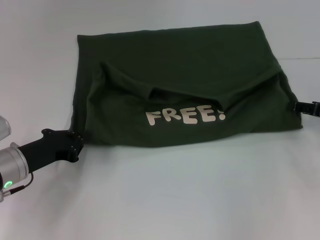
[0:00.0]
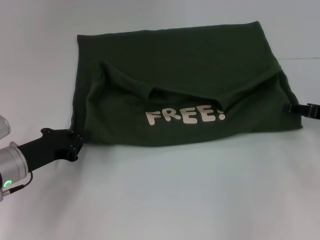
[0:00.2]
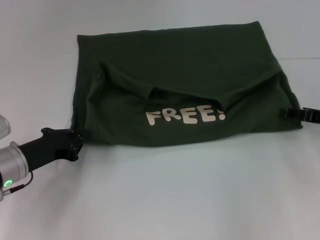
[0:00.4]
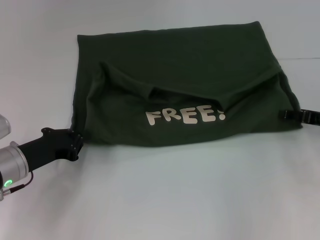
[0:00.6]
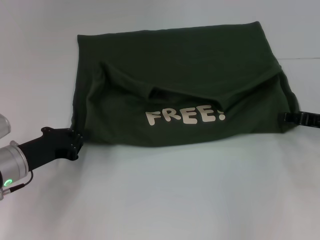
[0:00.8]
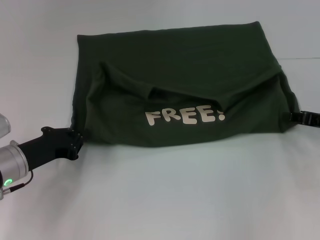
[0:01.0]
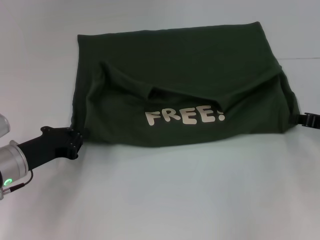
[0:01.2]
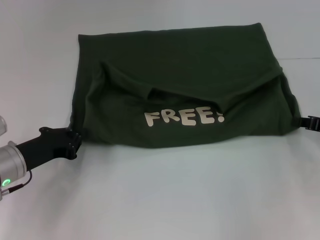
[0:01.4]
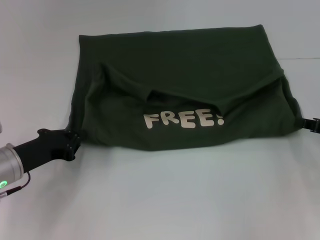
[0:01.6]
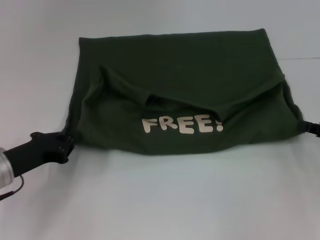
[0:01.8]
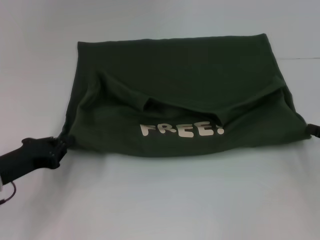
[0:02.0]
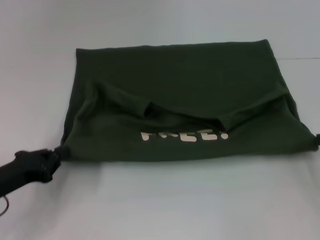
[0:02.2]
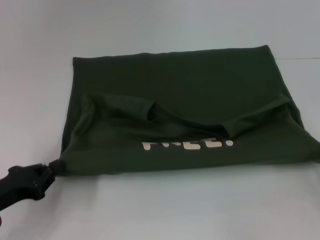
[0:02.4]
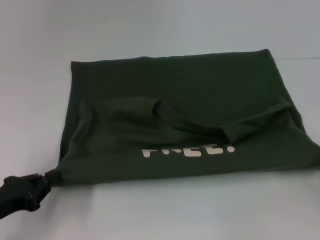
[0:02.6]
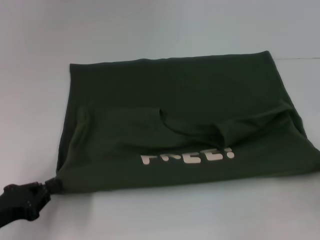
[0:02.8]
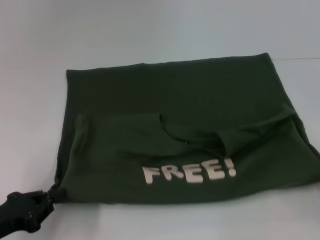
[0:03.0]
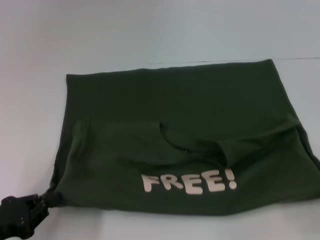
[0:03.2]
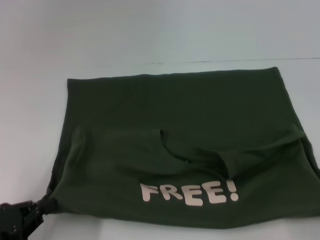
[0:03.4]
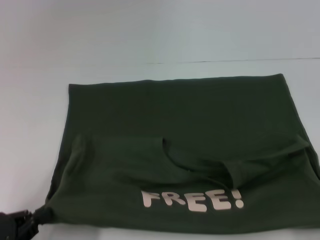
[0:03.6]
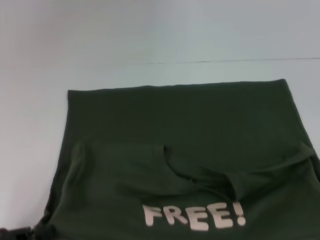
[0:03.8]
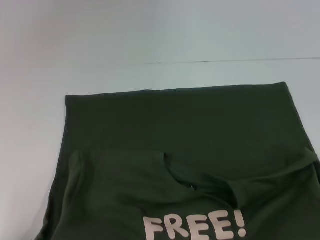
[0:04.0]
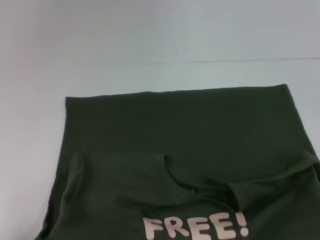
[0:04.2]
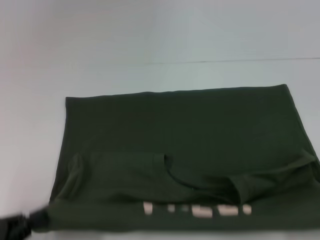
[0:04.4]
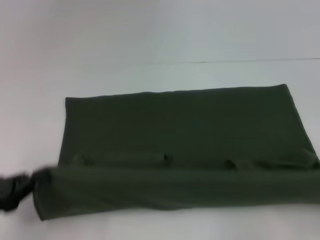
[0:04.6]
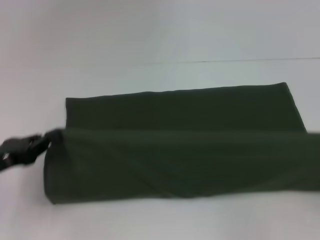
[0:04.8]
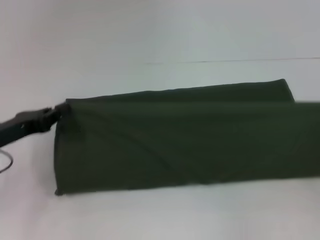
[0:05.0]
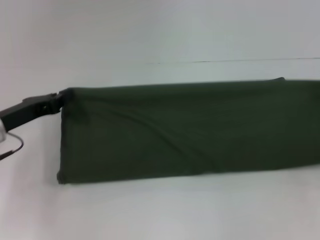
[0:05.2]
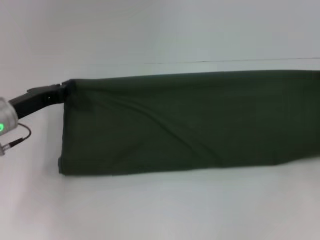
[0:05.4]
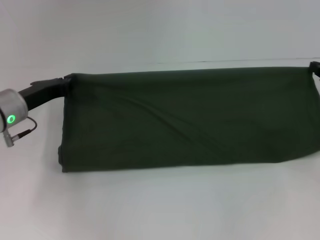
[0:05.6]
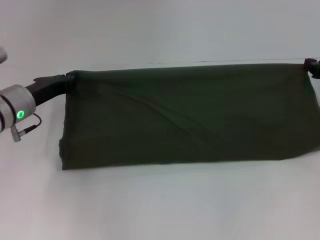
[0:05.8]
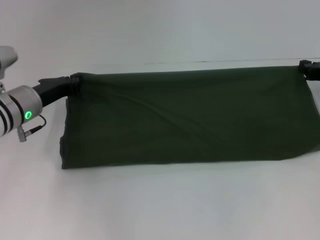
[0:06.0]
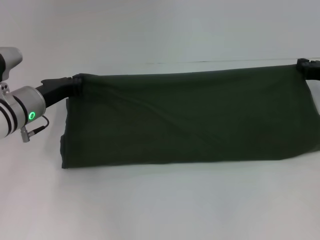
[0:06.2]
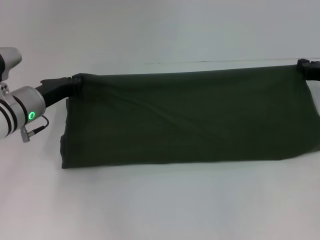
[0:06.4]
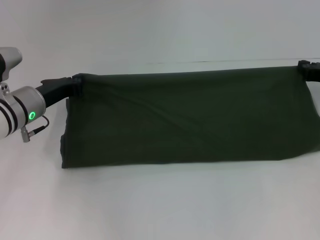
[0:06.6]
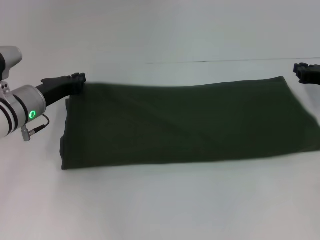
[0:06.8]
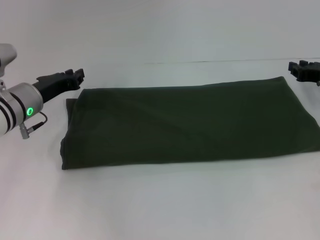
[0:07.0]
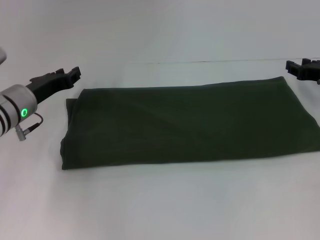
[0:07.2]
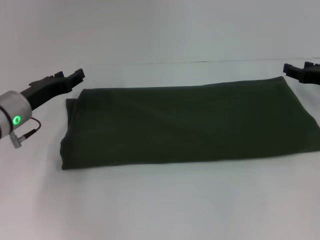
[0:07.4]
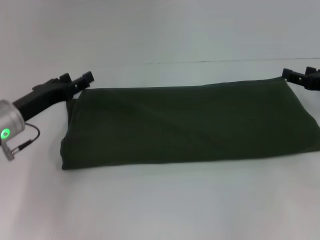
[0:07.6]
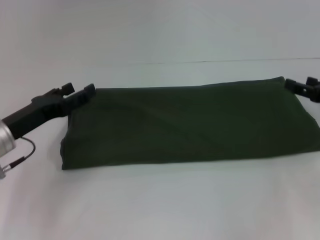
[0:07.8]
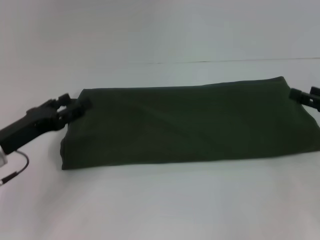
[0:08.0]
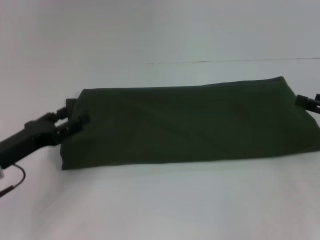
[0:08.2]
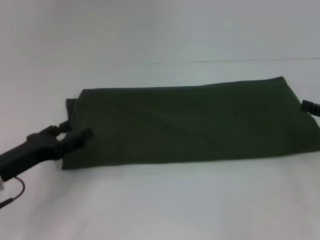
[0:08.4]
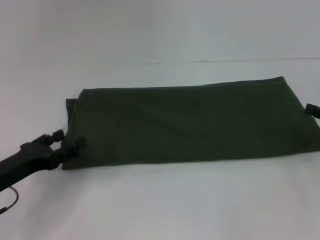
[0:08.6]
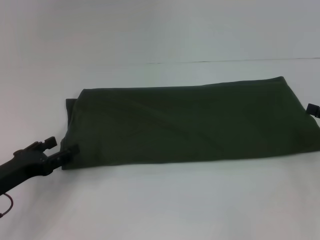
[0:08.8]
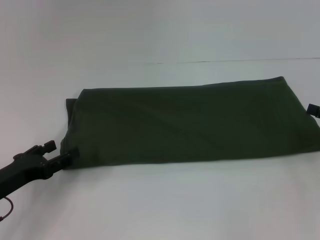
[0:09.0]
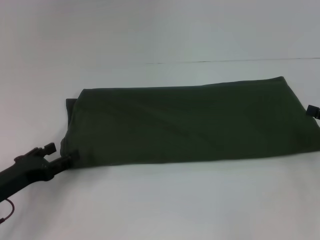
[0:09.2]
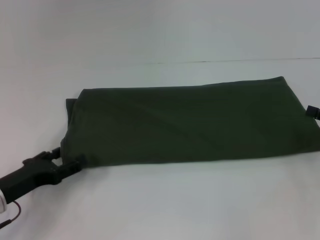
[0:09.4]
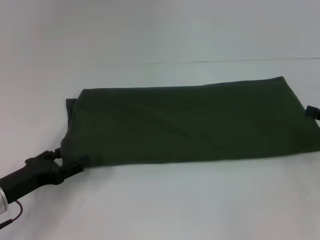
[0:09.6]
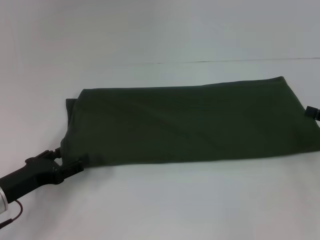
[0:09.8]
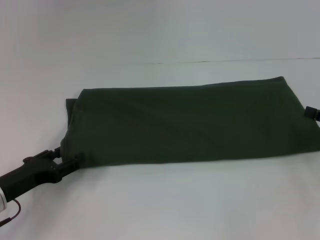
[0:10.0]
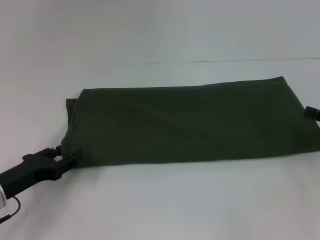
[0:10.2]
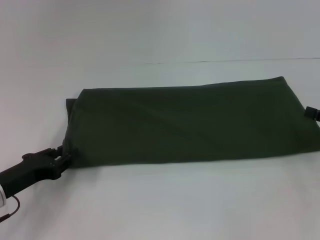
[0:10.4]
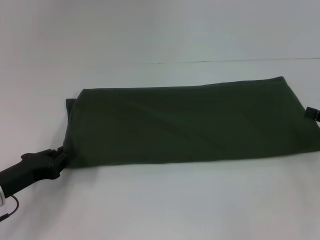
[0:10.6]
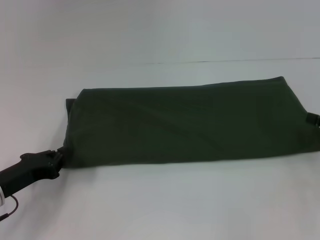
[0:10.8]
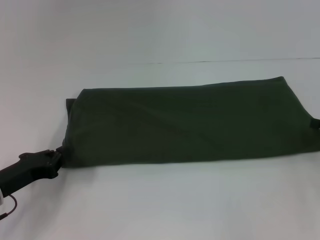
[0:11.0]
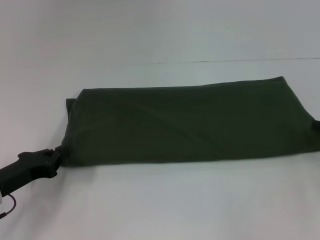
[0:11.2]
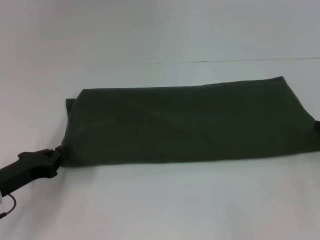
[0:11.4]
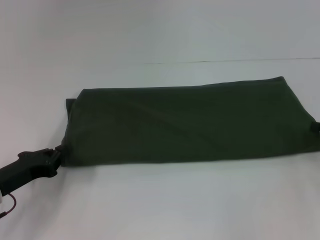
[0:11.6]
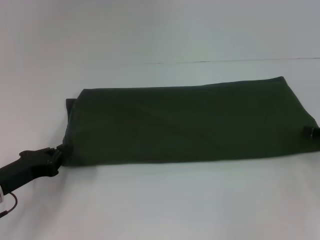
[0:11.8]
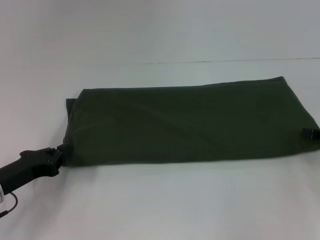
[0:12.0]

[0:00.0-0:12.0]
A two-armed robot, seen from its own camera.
Step, 0:00.0 to 0:04.0: Pull the clothes with your left hand.
Step, 0:00.0 to 0:04.0: Pull the clothes with your right hand.
Step, 0:04.2 to 0:06.8: Fold the clothes with your left hand.
Step, 0:04.2 to 0:06.8: Fold the clothes with your right hand.
0:00.0 to 0:01.6: The right gripper closes its fingers.
0:01.6 to 0:03.0: Both grippers travel together backward, roughly 10 cm.
0:03.0 to 0:04.4: The left gripper ends up some 5 cm from where it was. The right gripper moves backward, approximately 5 cm.
0:04.4 to 0:06.0: Both grippers travel together forward, some 25 cm.
0:06.0 to 0:07.6: The right gripper opens up; the left gripper moves approximately 5 cm, and opens.
0:07.6 to 0:09.0: The grippers both shift backward by roughly 10 cm.
0:09.0 to 0:10.4: The grippers stay close to where they were, moving slightly.
0:10.4 to 0:12.0: The left gripper closes its fingers.

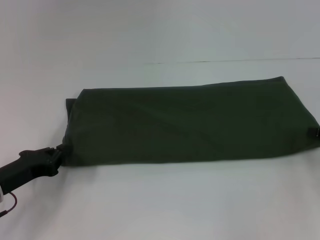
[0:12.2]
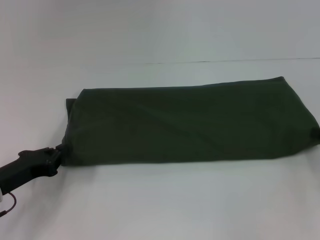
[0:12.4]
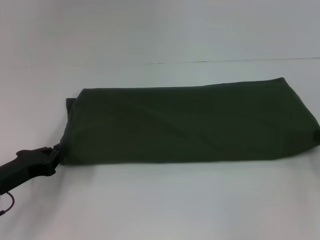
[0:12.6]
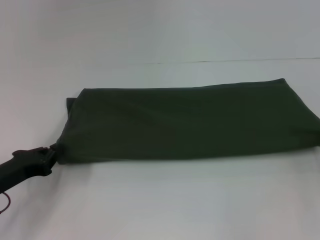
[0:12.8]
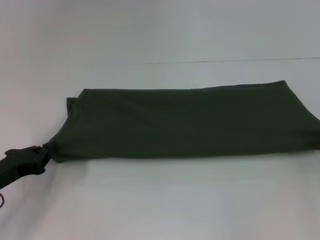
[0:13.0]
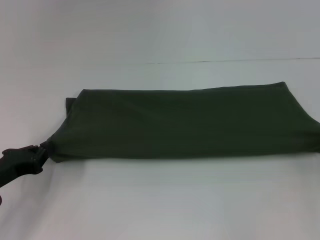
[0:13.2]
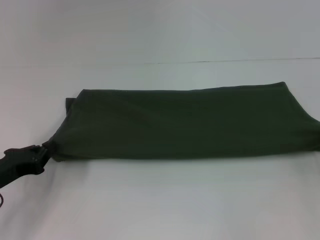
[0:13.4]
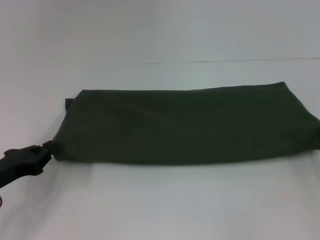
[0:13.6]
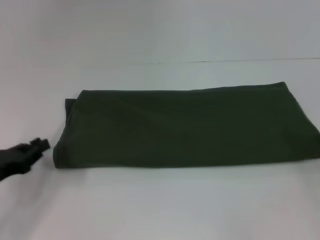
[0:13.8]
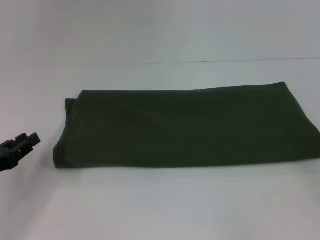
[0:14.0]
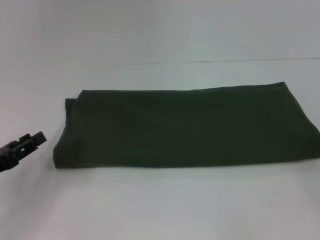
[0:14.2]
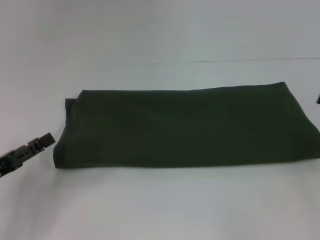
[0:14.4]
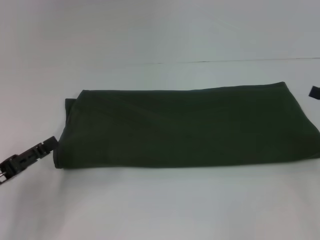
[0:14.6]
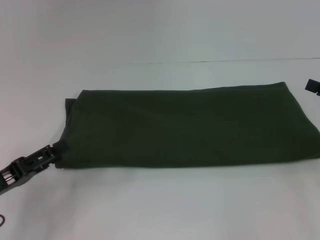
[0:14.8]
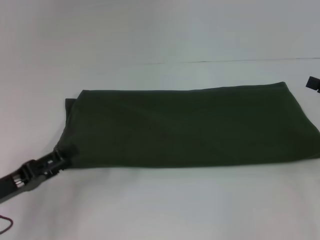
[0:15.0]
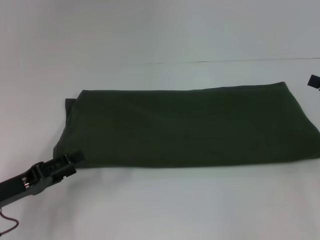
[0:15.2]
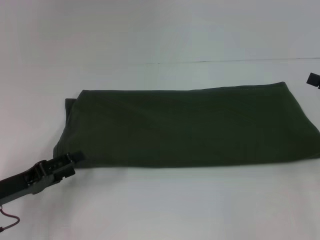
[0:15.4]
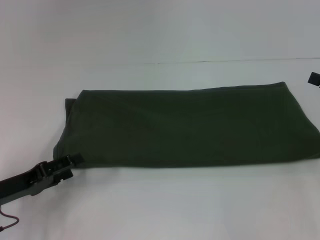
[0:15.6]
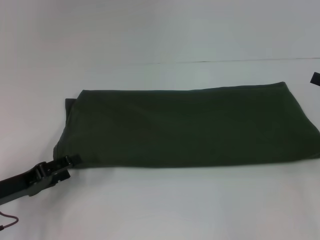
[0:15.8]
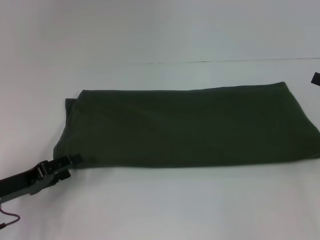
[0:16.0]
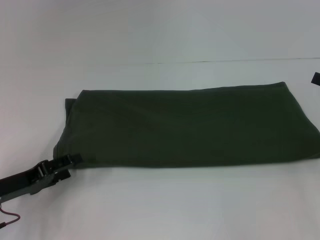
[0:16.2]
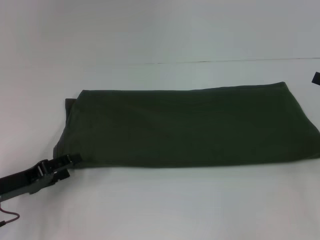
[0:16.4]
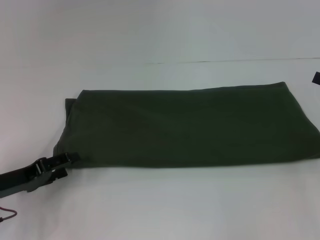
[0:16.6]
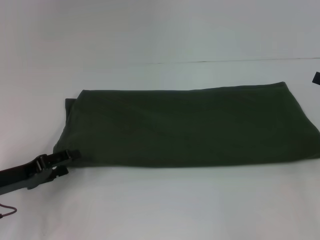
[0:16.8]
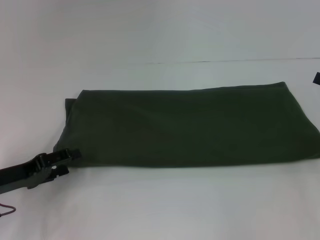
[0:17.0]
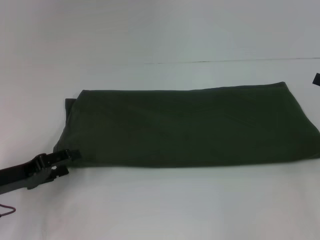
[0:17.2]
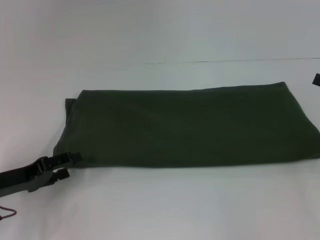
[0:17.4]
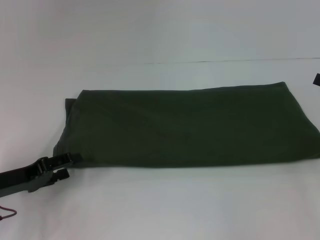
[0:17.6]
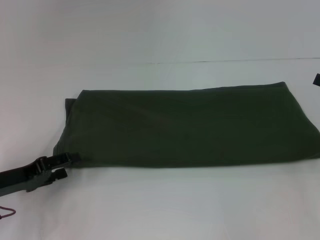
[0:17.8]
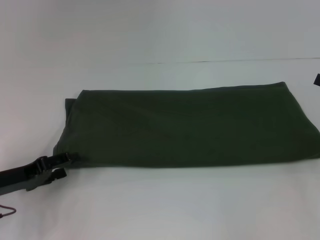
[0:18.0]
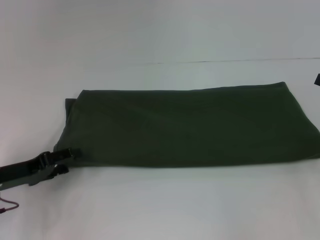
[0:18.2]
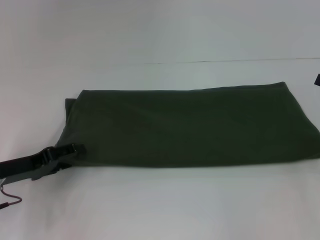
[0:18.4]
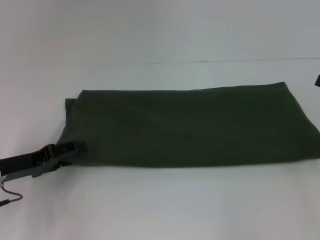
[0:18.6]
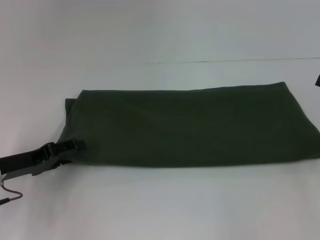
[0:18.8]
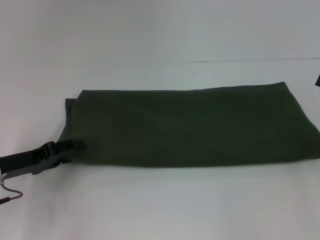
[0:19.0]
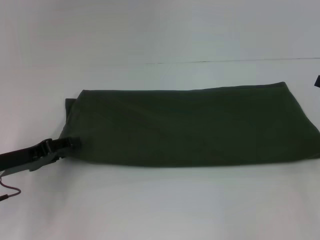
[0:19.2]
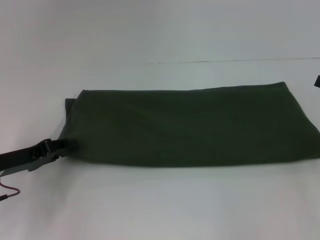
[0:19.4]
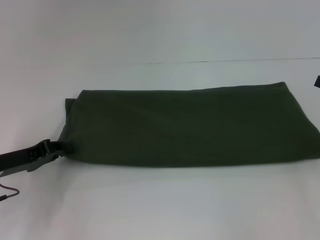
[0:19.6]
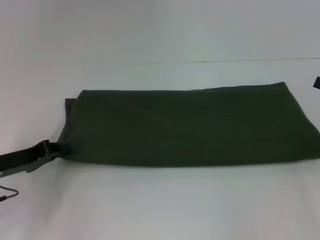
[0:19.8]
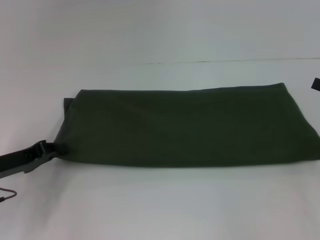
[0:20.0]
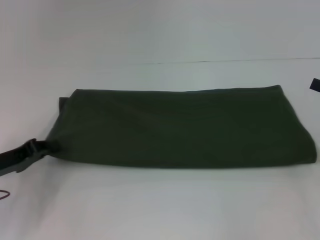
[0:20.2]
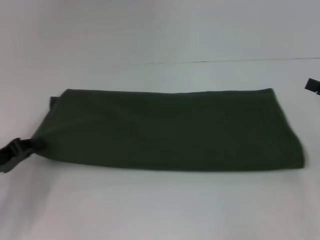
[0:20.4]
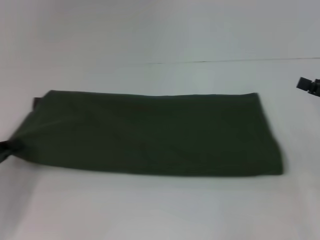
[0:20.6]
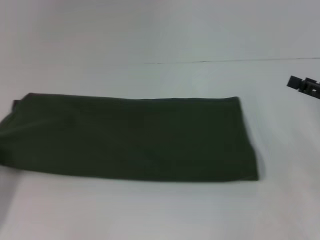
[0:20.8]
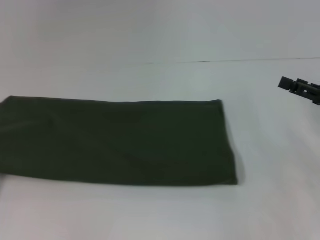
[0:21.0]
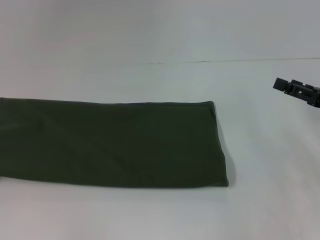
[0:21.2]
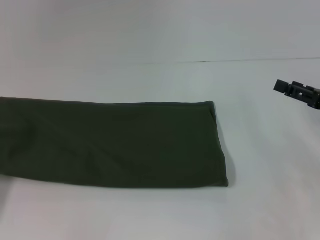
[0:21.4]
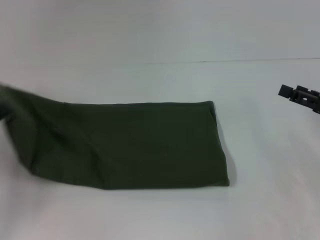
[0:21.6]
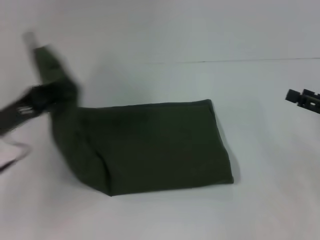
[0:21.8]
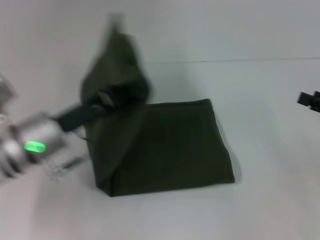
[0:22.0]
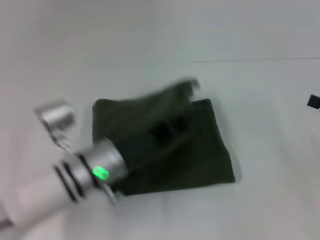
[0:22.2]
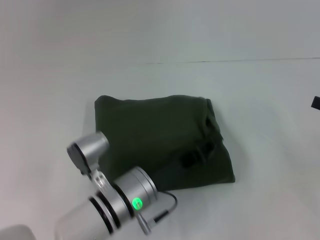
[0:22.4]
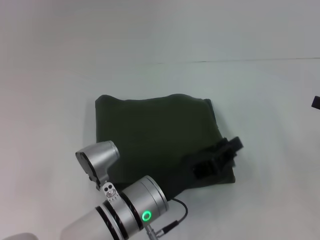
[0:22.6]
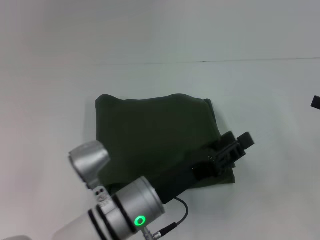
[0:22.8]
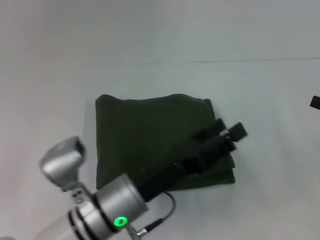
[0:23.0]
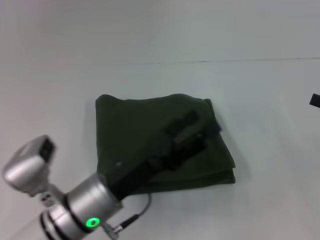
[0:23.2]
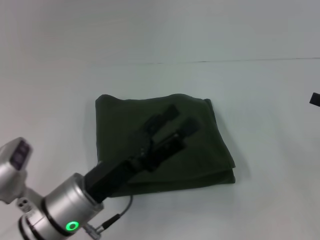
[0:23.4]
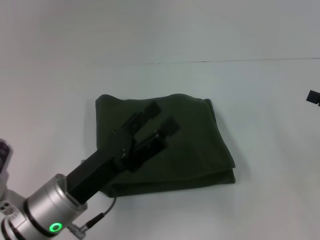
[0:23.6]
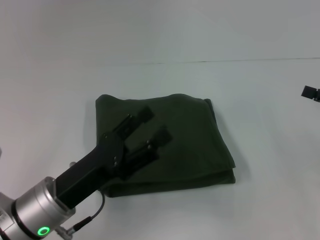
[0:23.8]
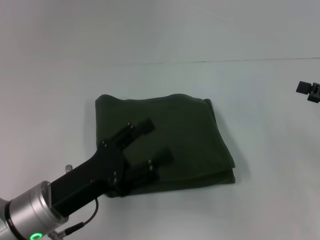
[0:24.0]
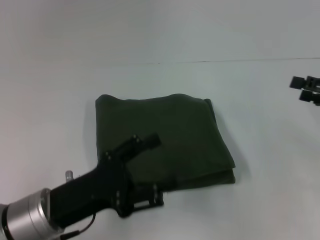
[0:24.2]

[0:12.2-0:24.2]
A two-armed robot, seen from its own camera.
Step, 0:14.0 to 0:22.6: Fold the clothes with your left hand.
0:12.2 to 0:13.8: The right gripper closes its fingers.
0:13.8 to 0:15.2: The left gripper opens its fingers.
0:15.2 to 0:18.2: There are only small adjustments of the grippers.
0:18.2 to 0:19.8: The left gripper closes up.
0:19.8 to 0:21.2: The left gripper moves to the left and backward, roughly 15 cm. The right gripper goes about 5 cm to the left.
0:21.2 to 0:22.6: The right gripper heads to the right, covering some 5 cm, while the left gripper heads to the right, covering about 35 cm.
0:22.6 to 0:24.2: The right gripper ends up some 5 cm from where it was. The left gripper travels to the left by roughly 15 cm, and opens up.
